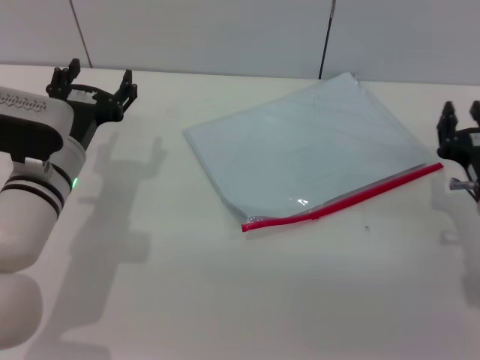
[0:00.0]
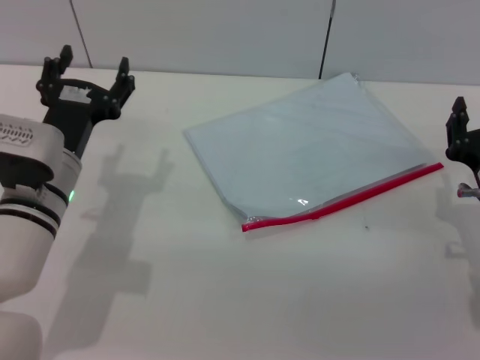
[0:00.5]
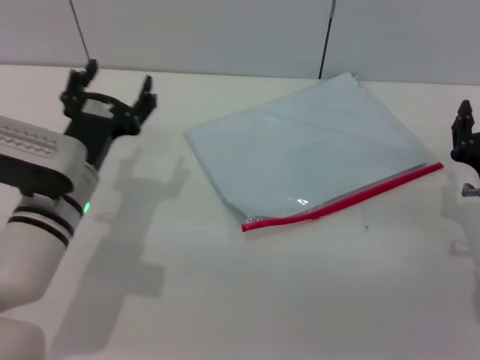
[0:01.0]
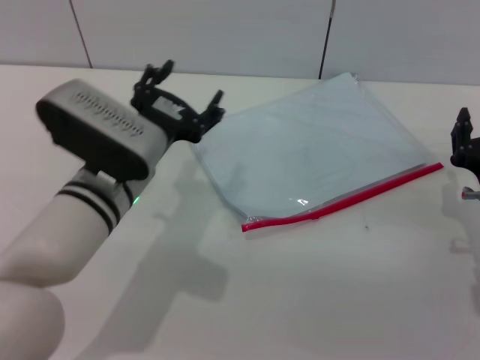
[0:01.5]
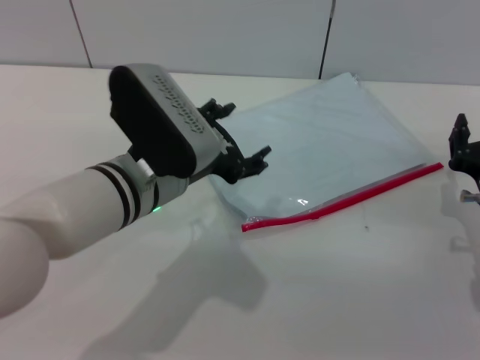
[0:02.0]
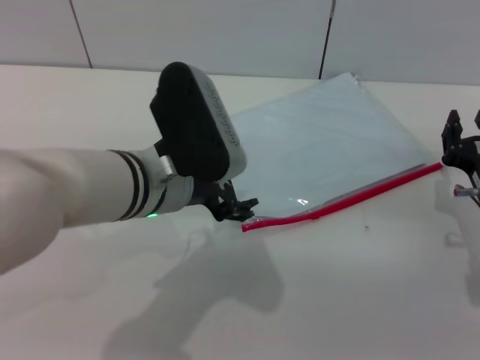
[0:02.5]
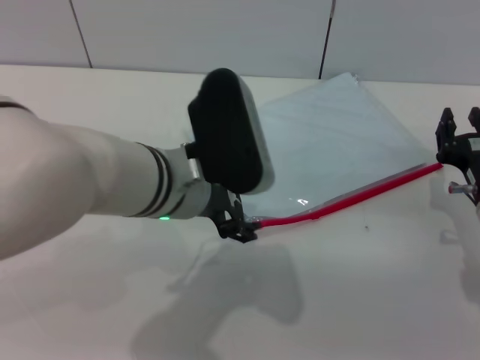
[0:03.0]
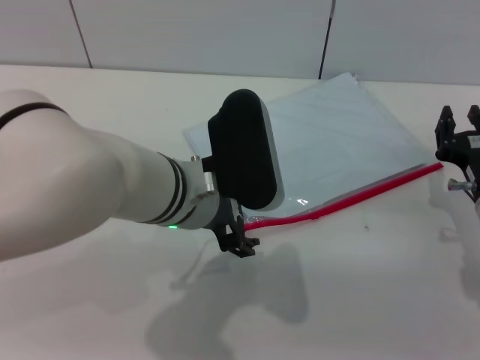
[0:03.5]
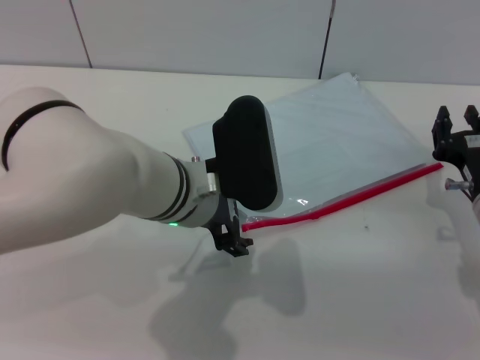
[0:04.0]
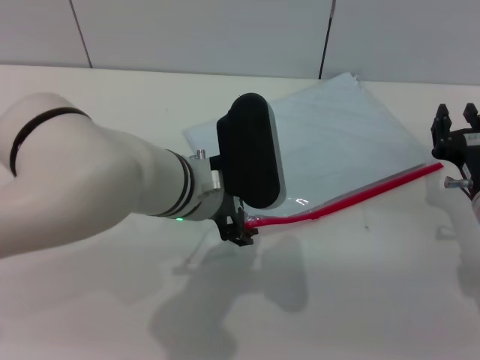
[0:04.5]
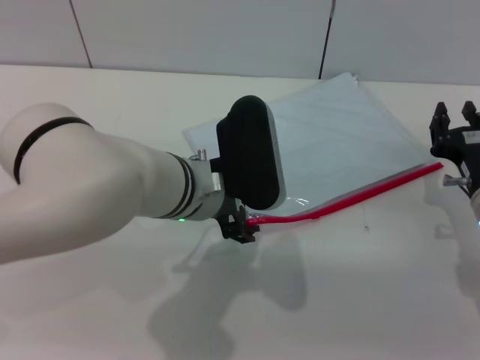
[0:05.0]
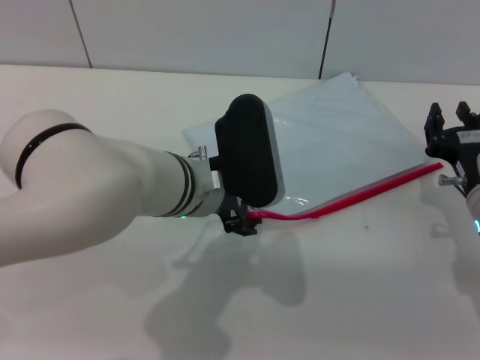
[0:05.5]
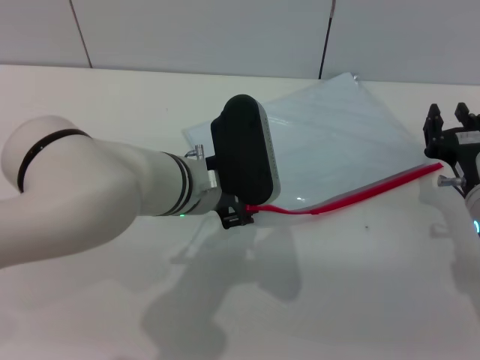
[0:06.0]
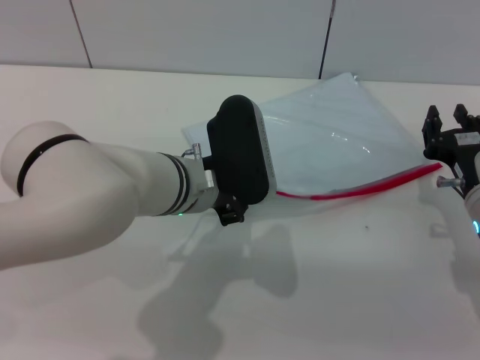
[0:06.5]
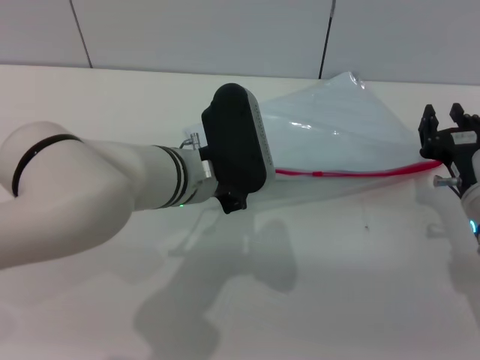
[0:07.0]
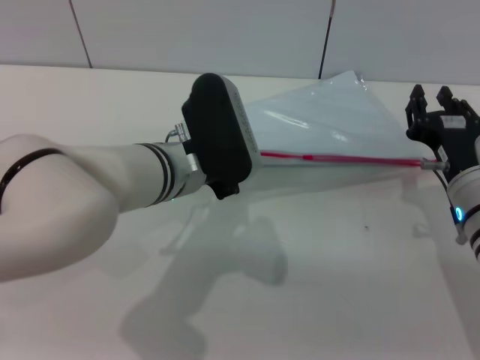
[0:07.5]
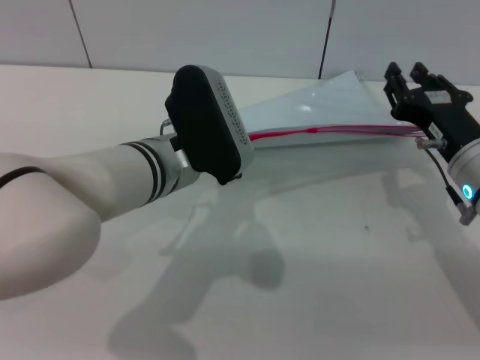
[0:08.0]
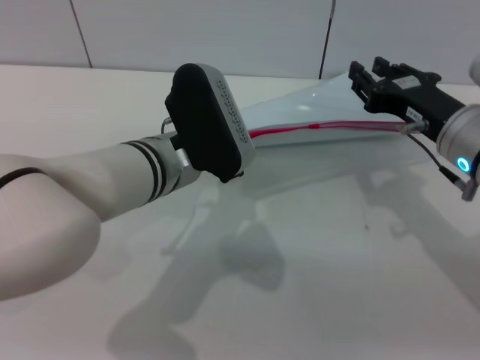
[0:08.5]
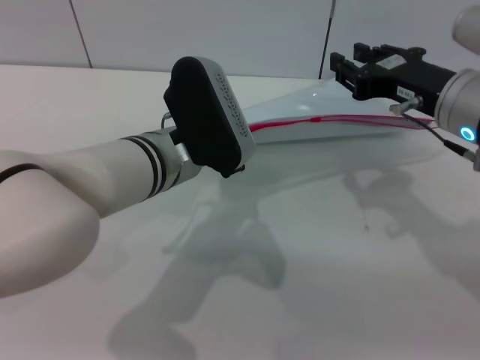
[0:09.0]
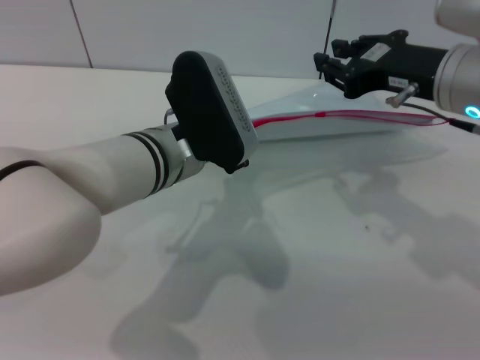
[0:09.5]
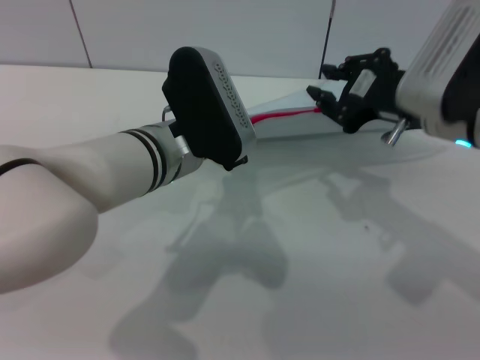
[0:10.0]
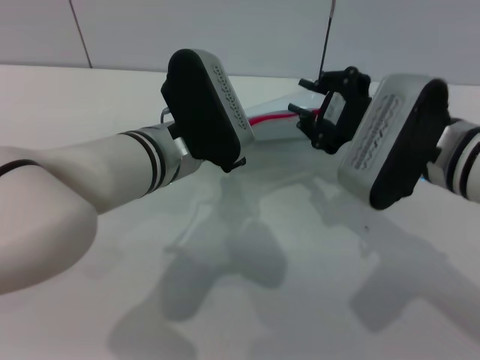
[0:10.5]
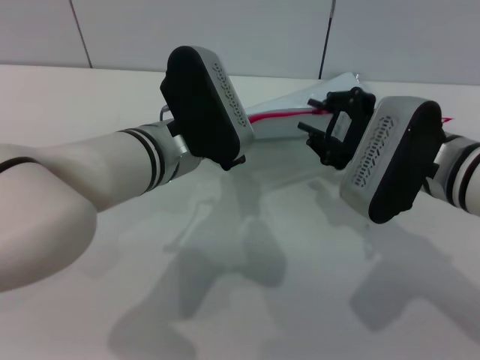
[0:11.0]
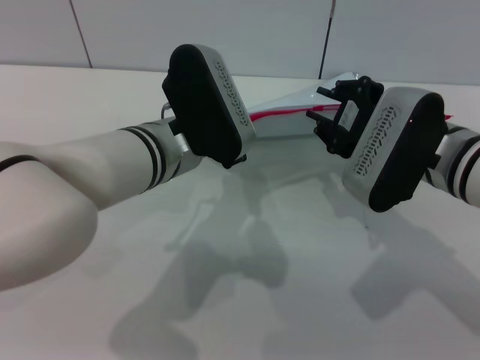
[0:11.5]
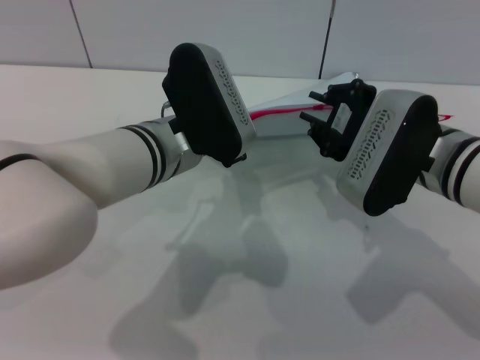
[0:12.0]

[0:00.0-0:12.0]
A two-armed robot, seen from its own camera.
Step, 0:00.0 to 0:07.0: Pick up the transparent plastic bag with the left gripper.
0:00.0 to 0:02.0: The left gripper goes some 10 cm to the right and upward.
0:04.0 to 0:06.0: The grippers stay close to where they were, moving slightly.
0:06.0 to 0:08.0: The left gripper closes its fingers. The right gripper moves upward, approximately 5 cm.
0:08.0 to 0:10.0: The right gripper goes about 10 cm upward.
0:10.0 to 0:12.0: The right gripper shifts by some 5 cm.

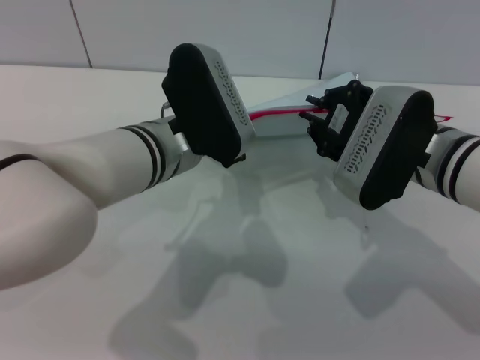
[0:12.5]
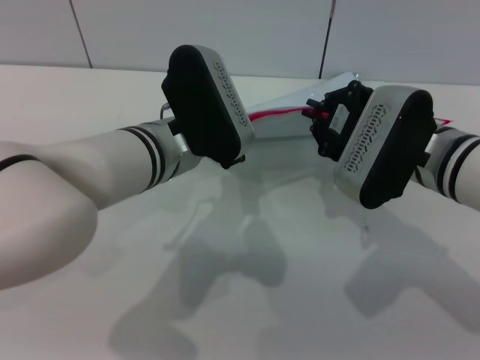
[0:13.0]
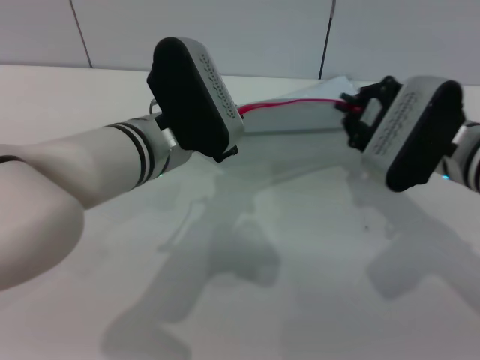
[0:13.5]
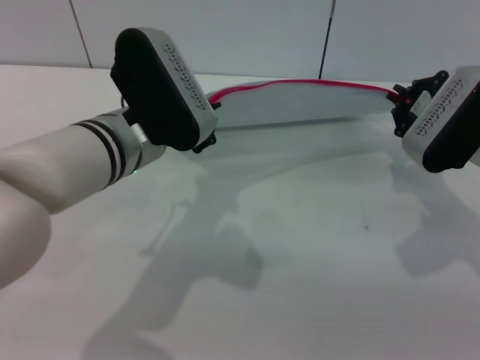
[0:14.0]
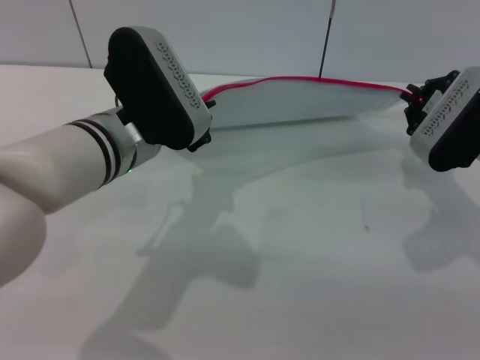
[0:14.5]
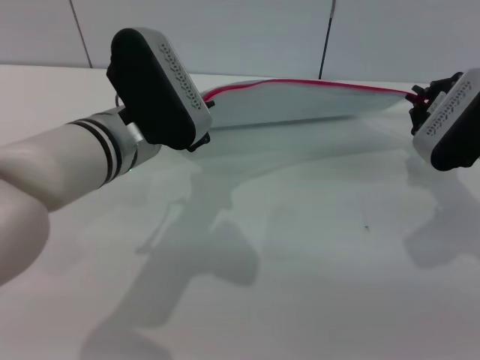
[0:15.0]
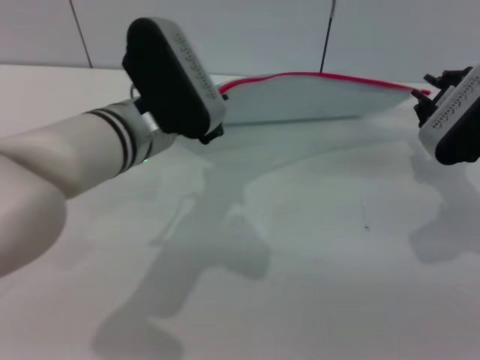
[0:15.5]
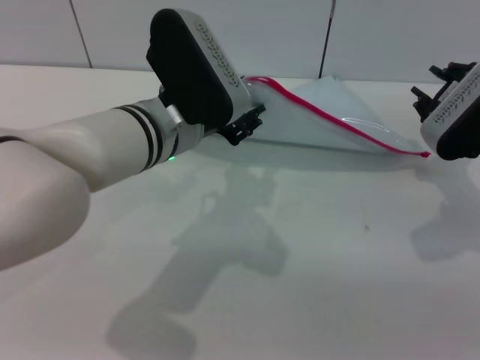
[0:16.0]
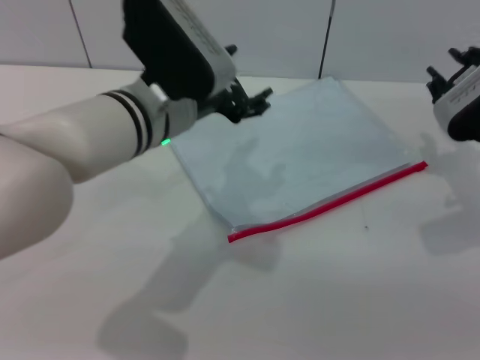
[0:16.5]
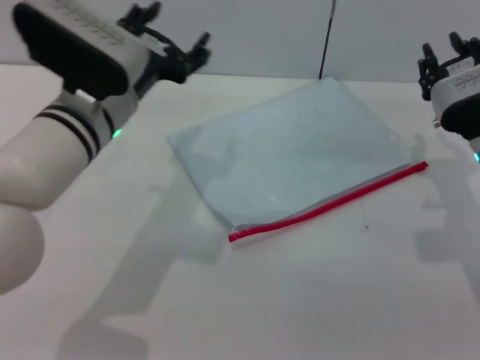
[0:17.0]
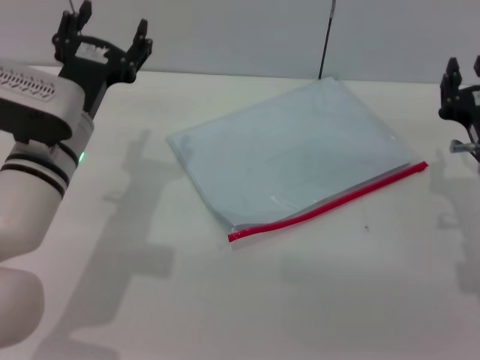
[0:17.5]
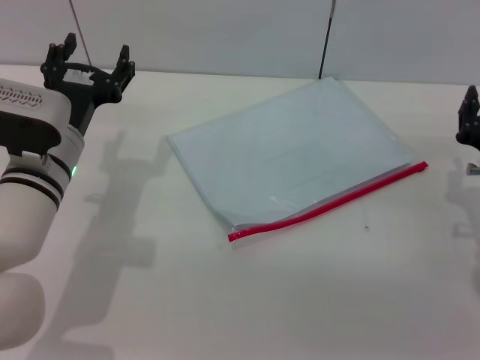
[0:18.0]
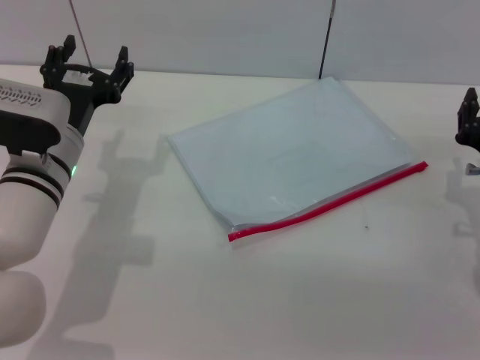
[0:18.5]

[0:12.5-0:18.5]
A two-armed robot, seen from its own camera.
Step, 0:12.5 to 0:15.5: Pulling up the zipper on the transparent plastic bag with the right gripper to close it.
Step, 0:16.0 to 0:16.5: Place the transparent plastic bag.
0:12.5 to 0:14.5: The right gripper shifts about 10 cm to the right.
0:14.5 to 0:16.5: The right gripper opens up, while the left gripper opens.
0:16.5 to 0:18.5: The right gripper travels downward and backward by about 10 cm; the left gripper moves to the left and downward, about 15 cm.
